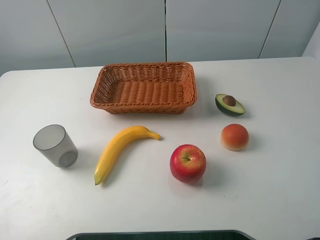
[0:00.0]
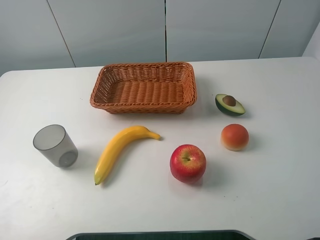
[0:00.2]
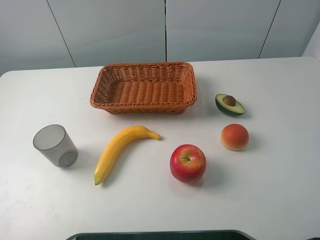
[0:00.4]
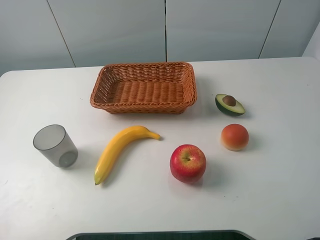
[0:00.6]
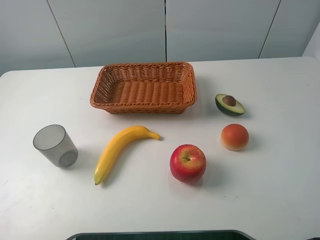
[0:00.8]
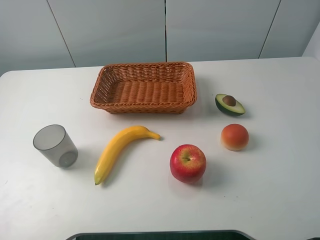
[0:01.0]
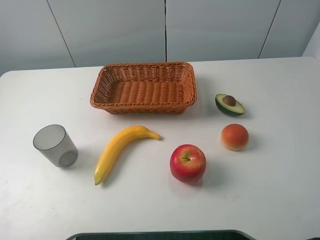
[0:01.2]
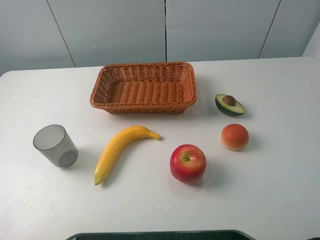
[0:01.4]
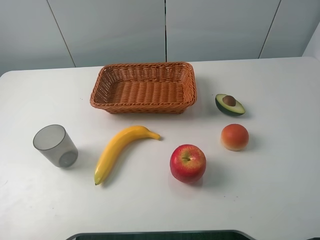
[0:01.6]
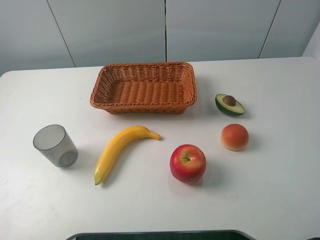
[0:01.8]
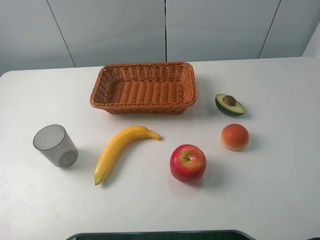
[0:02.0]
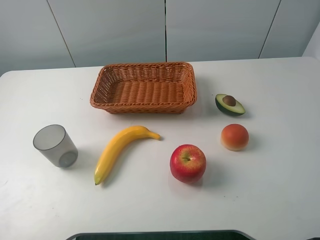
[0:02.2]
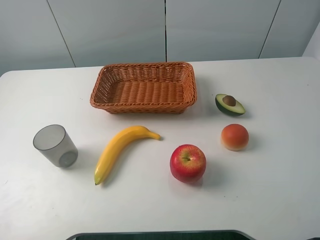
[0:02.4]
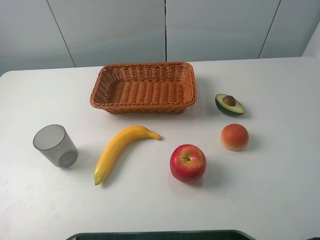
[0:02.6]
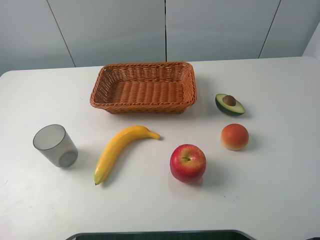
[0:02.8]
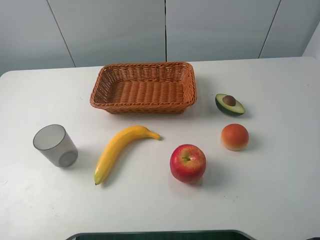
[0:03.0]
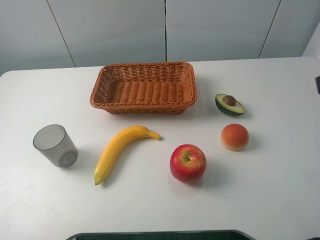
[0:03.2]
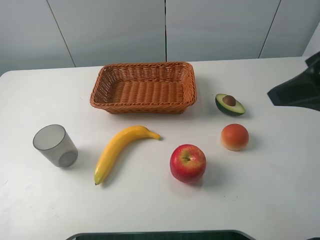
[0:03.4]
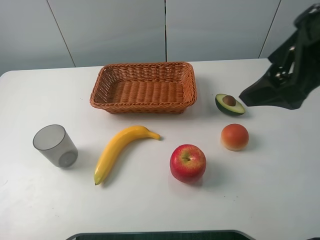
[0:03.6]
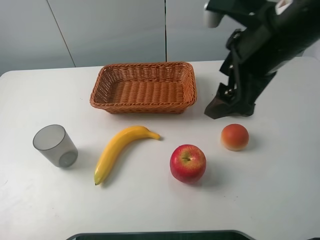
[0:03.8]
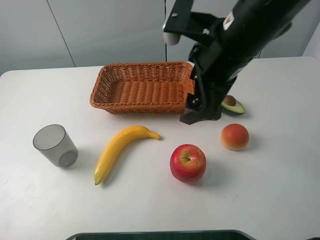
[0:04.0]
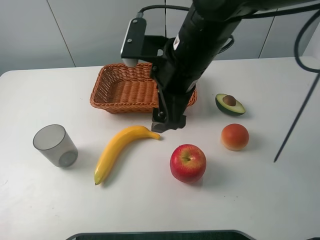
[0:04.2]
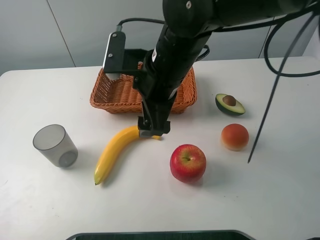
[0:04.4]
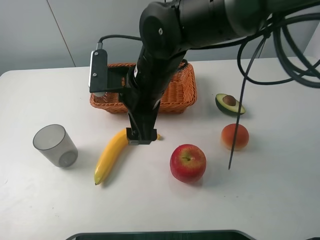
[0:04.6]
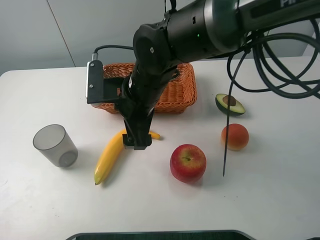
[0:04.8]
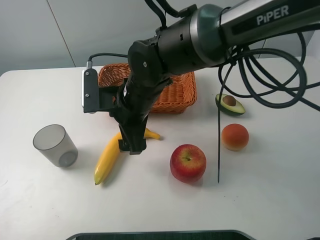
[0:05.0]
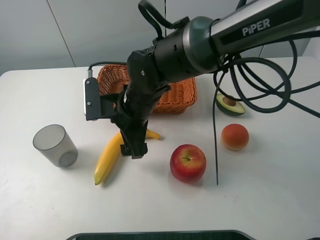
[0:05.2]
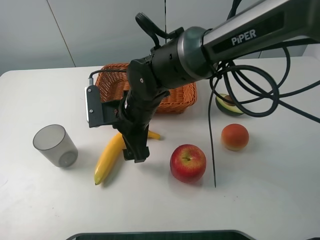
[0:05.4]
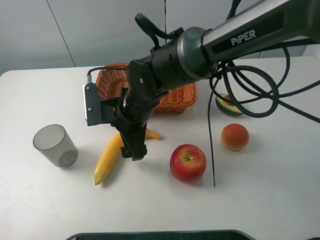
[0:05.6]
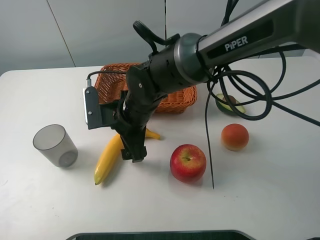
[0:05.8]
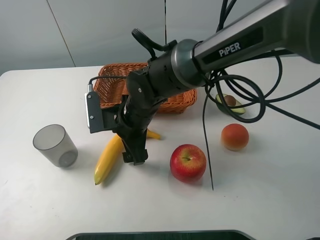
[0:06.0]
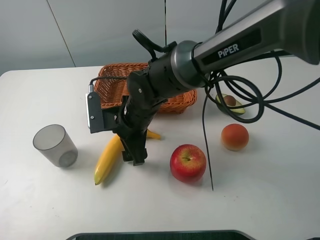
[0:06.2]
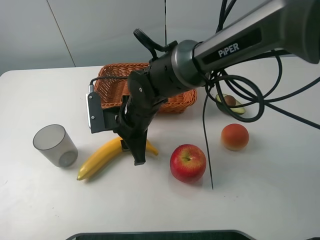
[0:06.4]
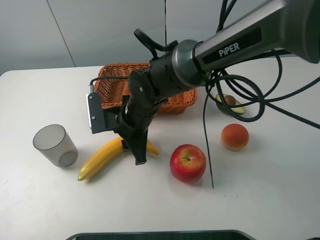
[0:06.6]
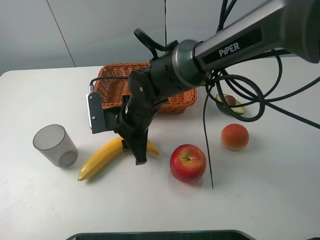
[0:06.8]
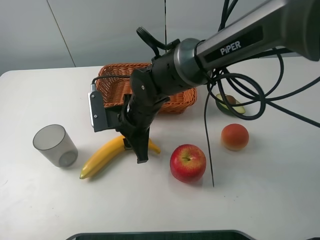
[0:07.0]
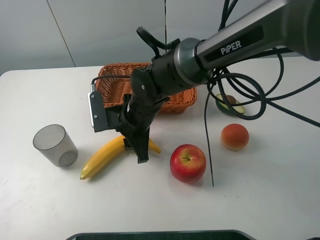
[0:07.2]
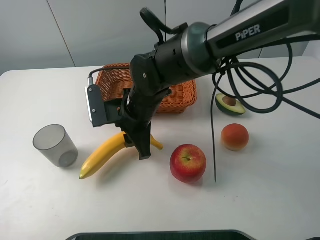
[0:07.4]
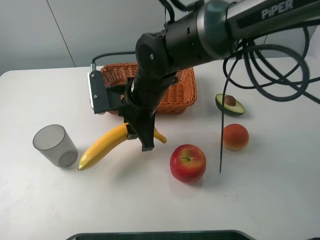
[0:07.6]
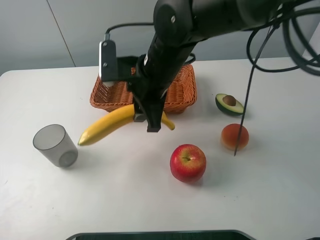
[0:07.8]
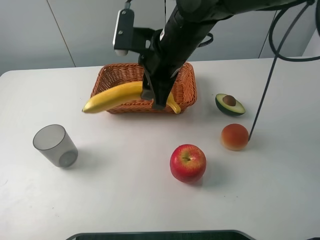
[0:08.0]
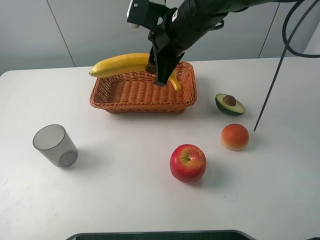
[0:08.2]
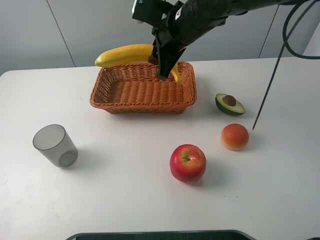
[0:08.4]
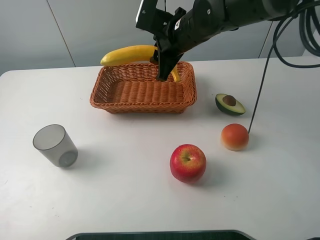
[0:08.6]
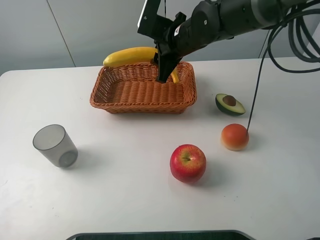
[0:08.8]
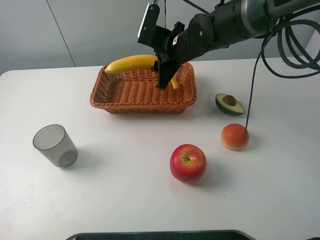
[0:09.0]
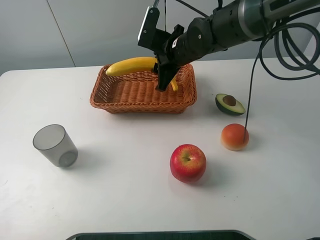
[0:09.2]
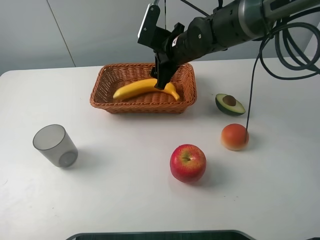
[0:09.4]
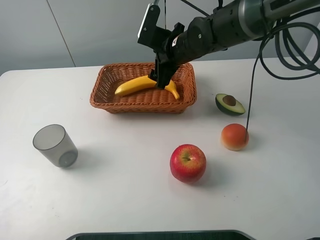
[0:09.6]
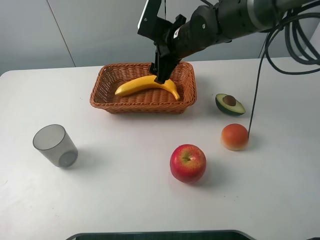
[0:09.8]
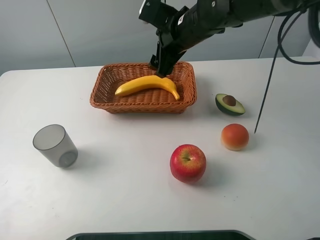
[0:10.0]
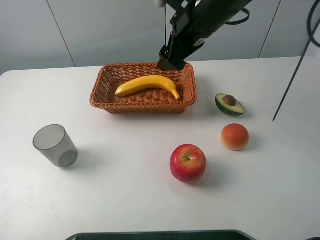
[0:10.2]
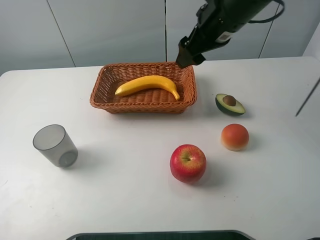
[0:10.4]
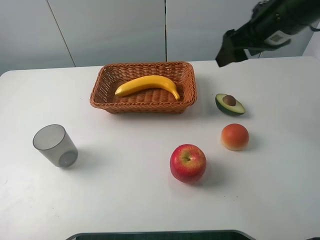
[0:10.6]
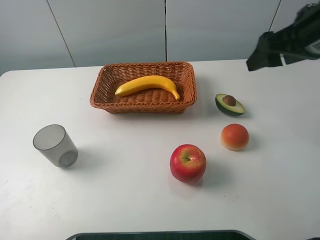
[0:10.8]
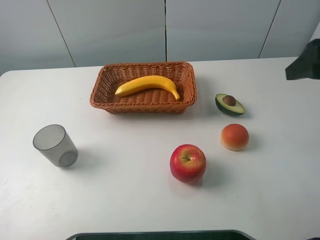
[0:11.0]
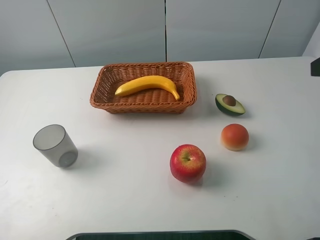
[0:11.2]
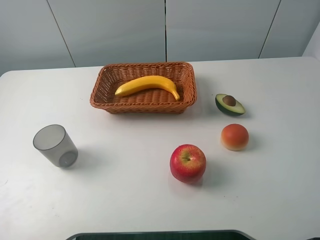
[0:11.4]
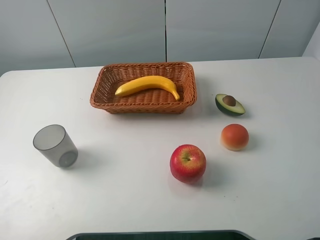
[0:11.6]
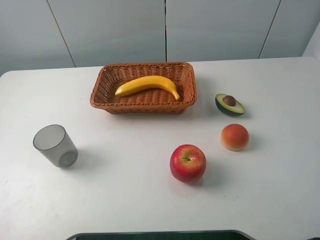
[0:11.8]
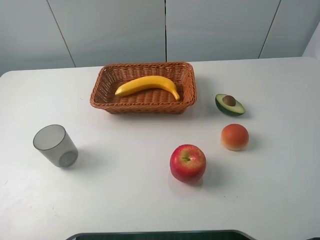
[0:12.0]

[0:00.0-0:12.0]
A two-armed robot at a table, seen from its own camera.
Task of the whole recording: randomly pick up an item from the table and put it in the basket.
Step, 0:00.0 to 0:06.8: Grasp the banana with the right gripper.
Step, 0:07.0 to 0:10.4: Place the banana into the basket with the right gripper.
0:00.0 to 0:01.6: Both grippers stay put.
0:03.0 to 0:04.4: The right gripper travels to the left, forward and downward by some 35 cm.
0:04.4 to 0:06.0: The right gripper goes roughly 10 cm downward and to the left.
0:06.0 to 0:07.6: The right gripper is displaced upward by some 5 cm, and closes.
0:07.6 to 0:09.0: The right gripper goes some 15 cm forward and to the right.
0:09.0 to 0:10.4: The right gripper goes about 15 cm upward, to the right and backward, and opens its fingers.
0:10.4 to 0:12.0: The right gripper goes some 35 cm backward and to the right.

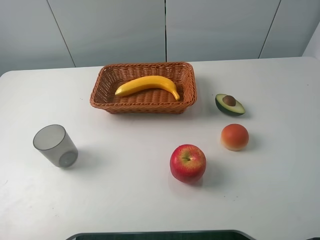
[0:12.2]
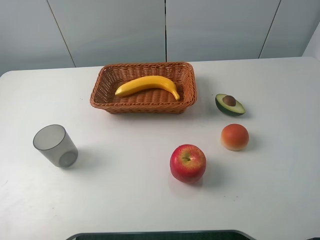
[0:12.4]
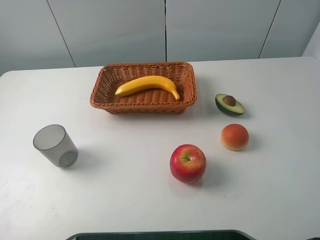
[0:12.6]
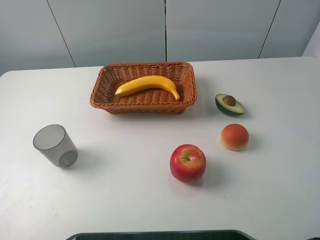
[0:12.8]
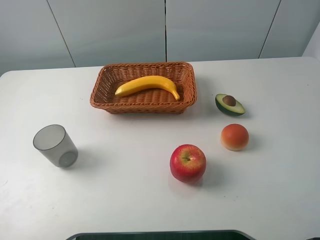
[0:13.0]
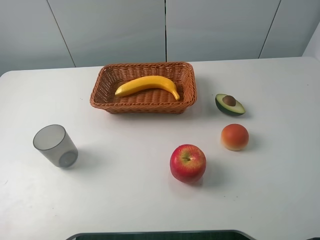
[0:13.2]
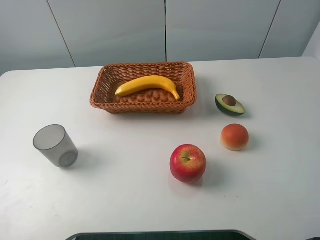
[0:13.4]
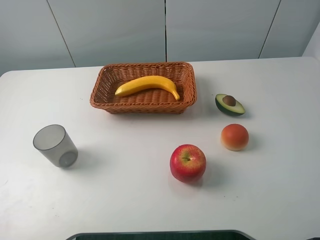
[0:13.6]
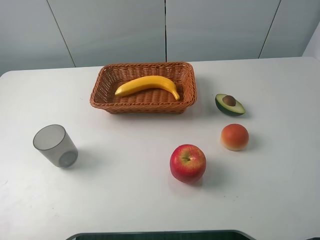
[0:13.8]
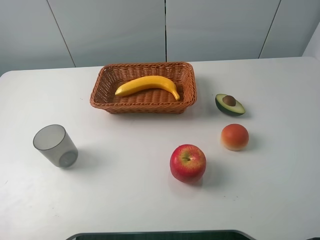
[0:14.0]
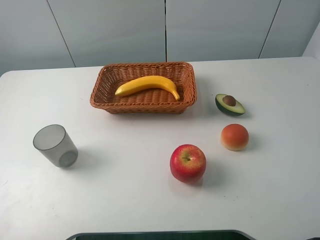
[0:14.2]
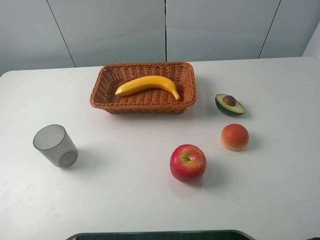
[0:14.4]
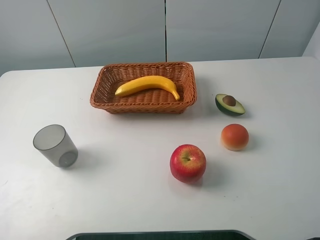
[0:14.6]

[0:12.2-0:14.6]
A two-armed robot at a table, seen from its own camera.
Task of the whole recording: randomly pick up an item from the table and put it in the basket.
0:12.2 to 0:14.6: Neither gripper changes place.
